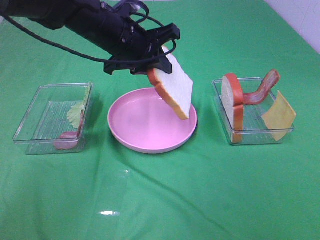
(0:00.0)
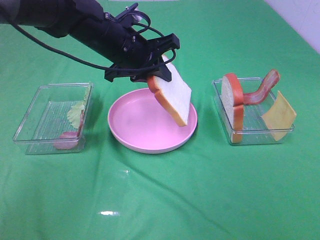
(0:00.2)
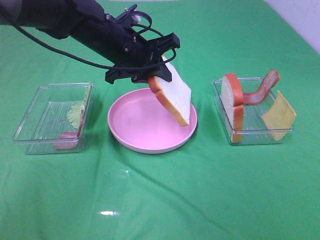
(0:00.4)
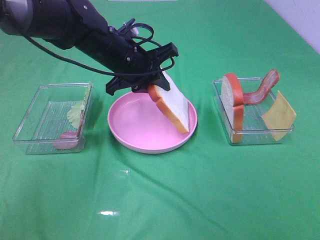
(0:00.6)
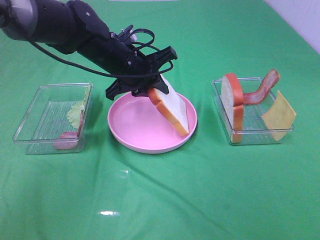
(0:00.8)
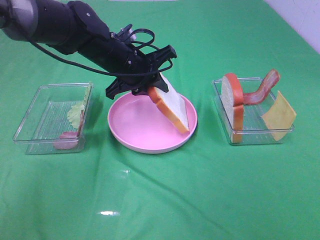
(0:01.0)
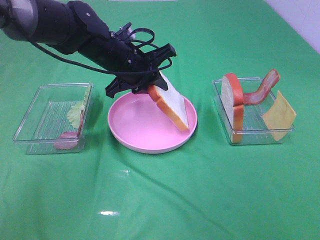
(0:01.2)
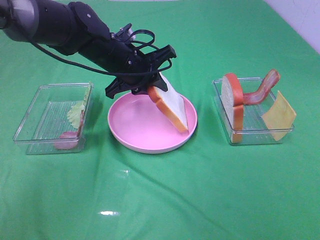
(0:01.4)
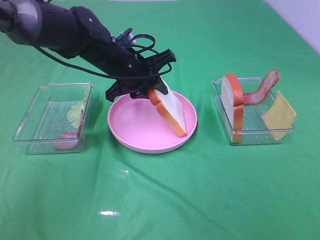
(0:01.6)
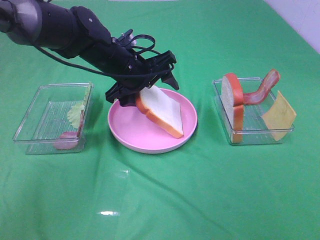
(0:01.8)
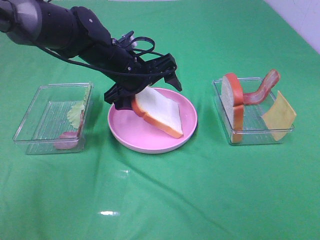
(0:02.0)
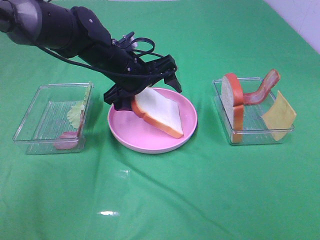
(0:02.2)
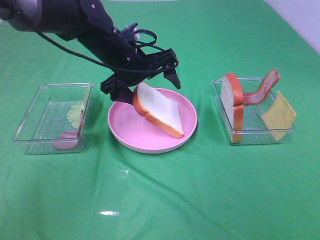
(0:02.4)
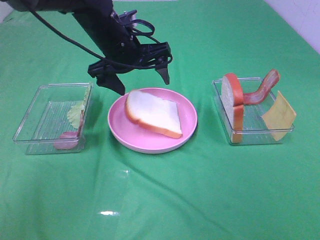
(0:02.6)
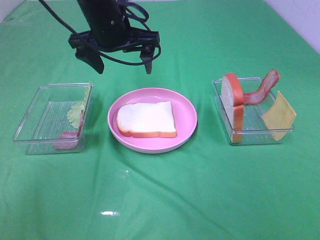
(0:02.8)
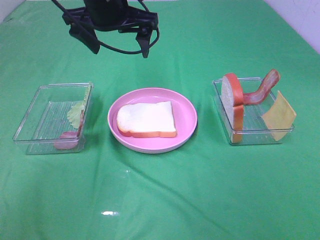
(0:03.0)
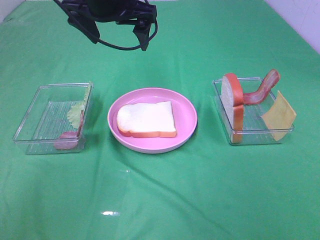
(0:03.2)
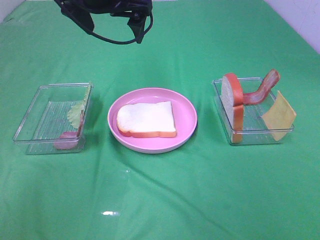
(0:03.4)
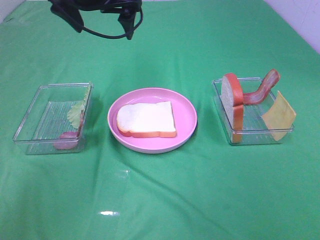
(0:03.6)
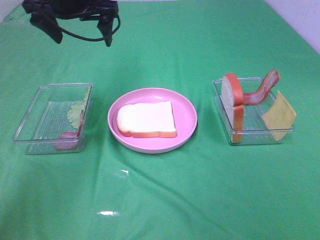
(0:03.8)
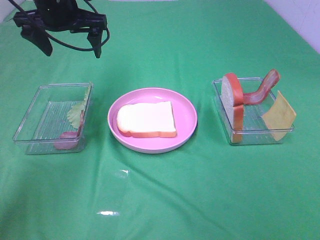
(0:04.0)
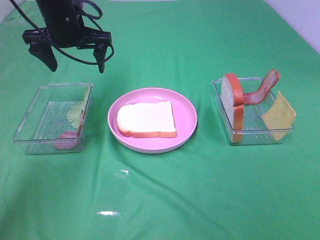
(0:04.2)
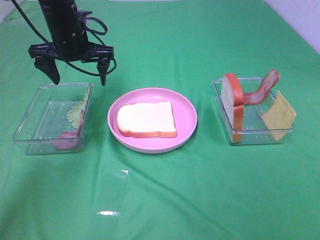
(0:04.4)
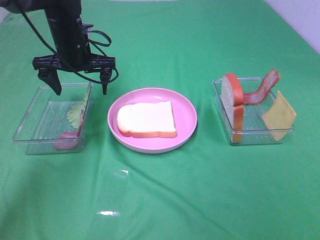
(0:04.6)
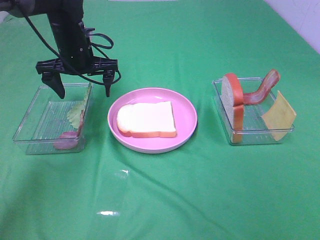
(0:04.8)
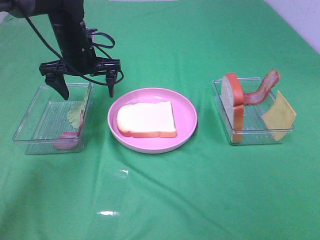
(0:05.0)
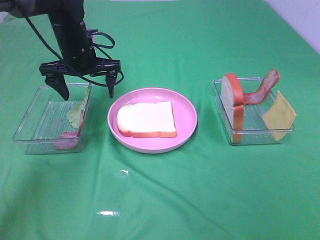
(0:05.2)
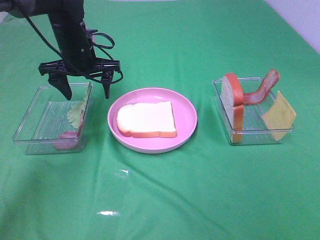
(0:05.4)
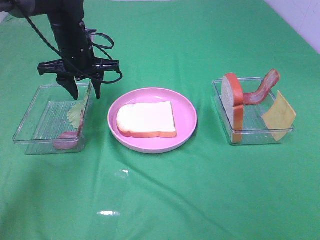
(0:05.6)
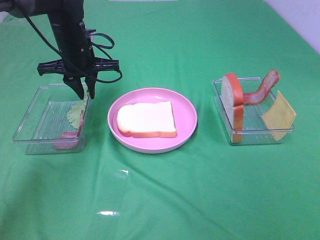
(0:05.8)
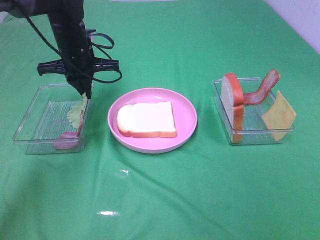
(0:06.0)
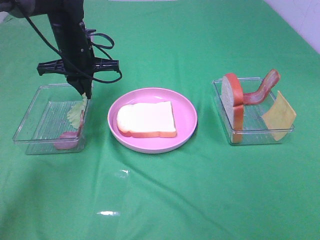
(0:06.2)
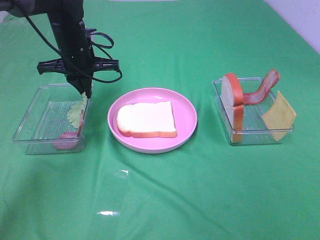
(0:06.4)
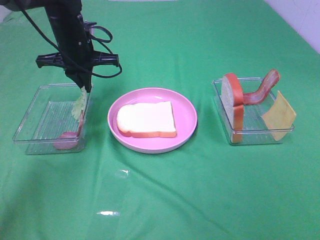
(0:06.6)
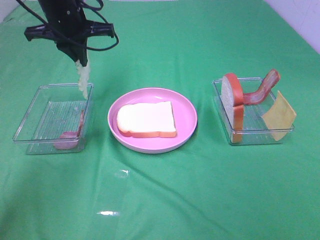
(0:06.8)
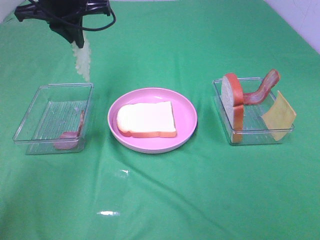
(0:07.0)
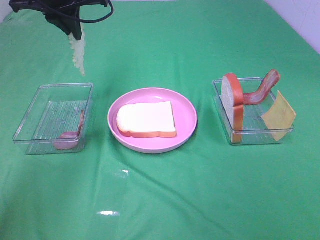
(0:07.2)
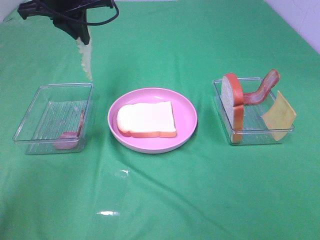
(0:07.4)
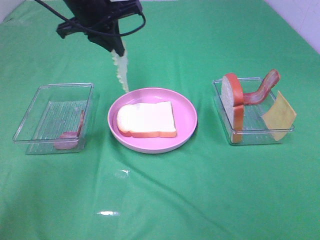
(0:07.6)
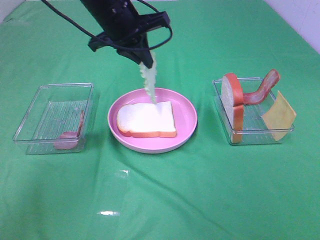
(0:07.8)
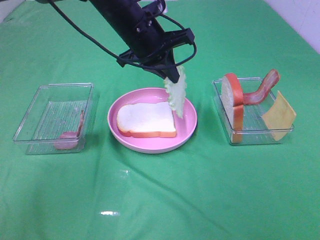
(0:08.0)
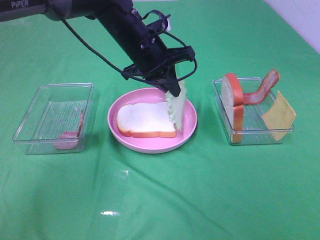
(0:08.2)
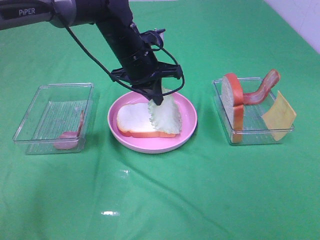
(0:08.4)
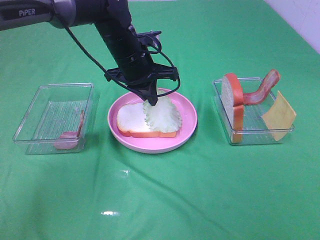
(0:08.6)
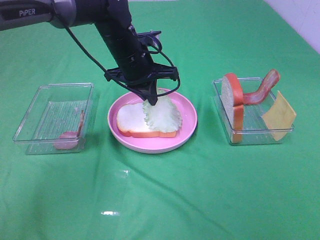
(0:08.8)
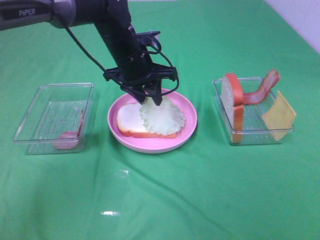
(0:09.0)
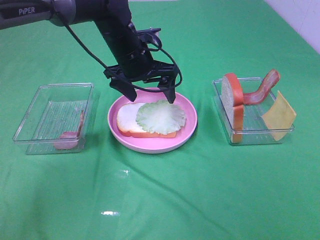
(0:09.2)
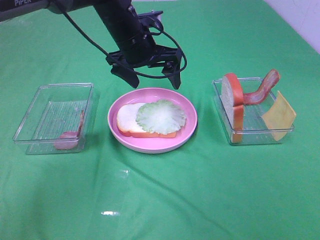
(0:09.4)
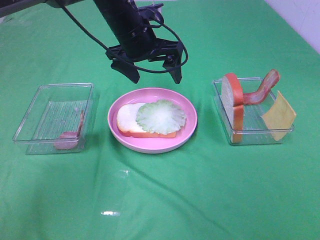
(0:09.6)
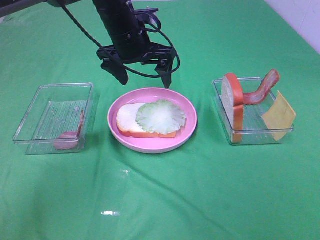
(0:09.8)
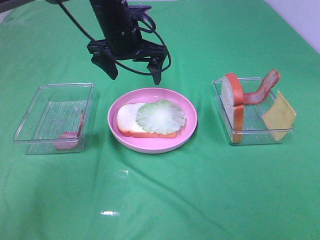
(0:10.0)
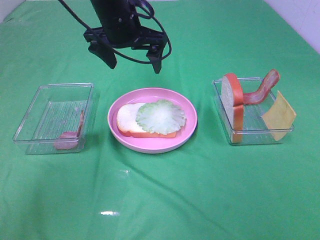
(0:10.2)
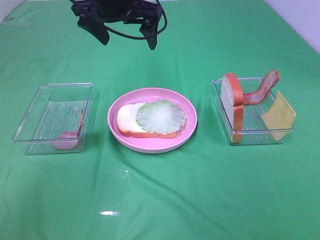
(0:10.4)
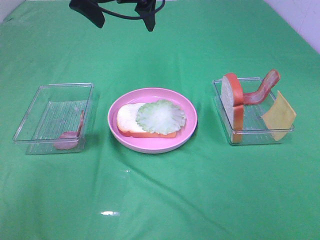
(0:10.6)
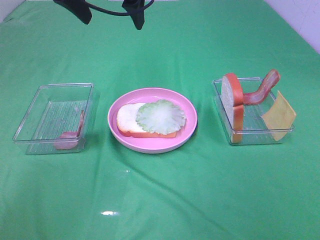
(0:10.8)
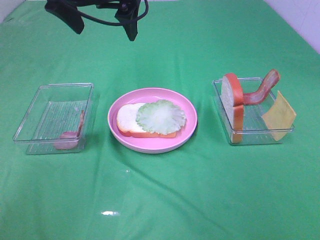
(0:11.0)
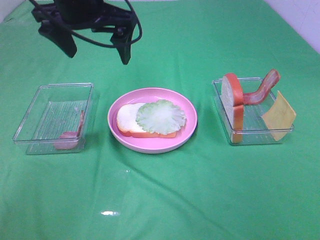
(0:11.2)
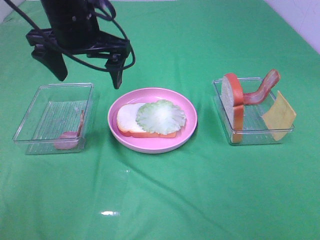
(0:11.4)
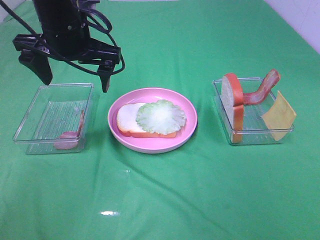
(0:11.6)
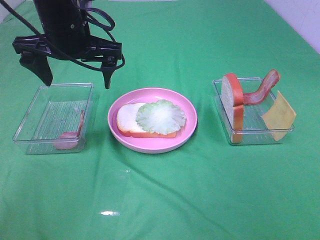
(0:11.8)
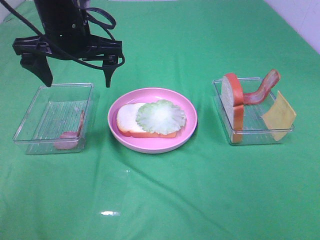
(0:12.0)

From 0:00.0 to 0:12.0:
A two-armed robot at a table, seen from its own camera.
Task of the whole recording: Make sandwiches.
Step, from 0:00.0 to 0:02.6: Left hand:place the bread slice on the plate.
Step, from 0:02.8 to 0:06.2: Left hand:grab the lettuce slice.
Step, from 0:06.4 to 0:09.0: Left hand:place the lettuce slice on the bread slice.
From 0:00.0 to 0:01.6: The left gripper heads downward, covering approximately 5 cm.
From 0:01.6 to 0:03.0: The left gripper goes roughly 15 cm upward, and opens its fingers.
From 0:03.0 to 0:04.4: The left gripper travels downward and to the left by some 10 cm.
From 0:04.4 to 0:06.0: The left gripper closes its fingers.
From 0:06.0 to 0:07.6: The left gripper travels upward by some 10 cm.
From 0:07.6 to 0:09.0: The left gripper heads downward and to the right, covering some 10 cm, and opens.
From 0:09.0 to 0:10.4: The left gripper shifts roughly 10 cm upward, and opens its fingers.
From 0:10.4 to 0:12.0: The left gripper travels backward by roughly 5 cm.

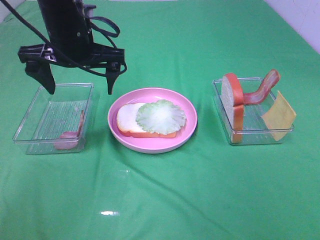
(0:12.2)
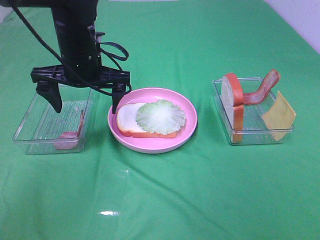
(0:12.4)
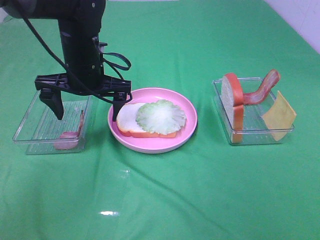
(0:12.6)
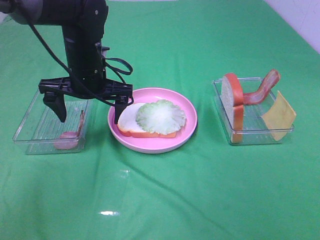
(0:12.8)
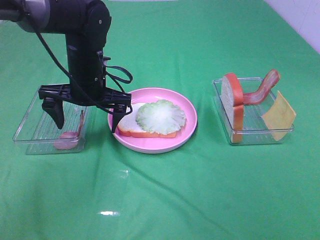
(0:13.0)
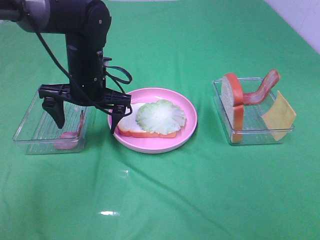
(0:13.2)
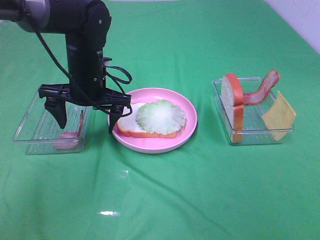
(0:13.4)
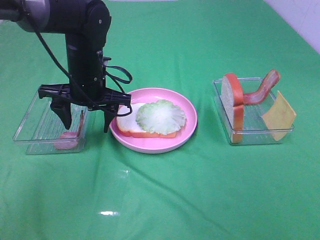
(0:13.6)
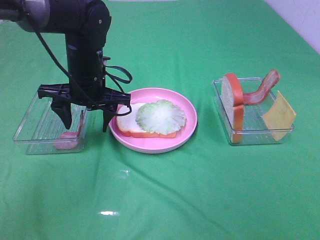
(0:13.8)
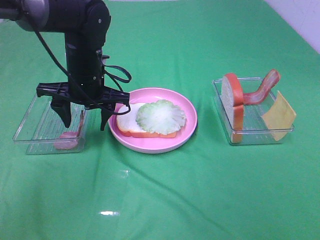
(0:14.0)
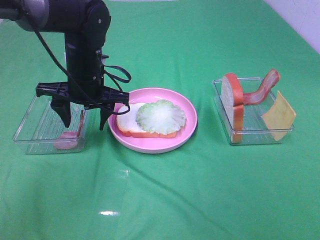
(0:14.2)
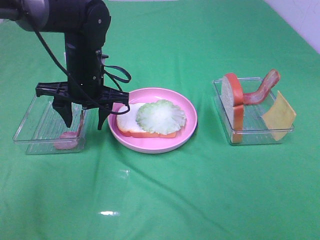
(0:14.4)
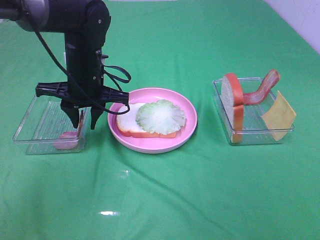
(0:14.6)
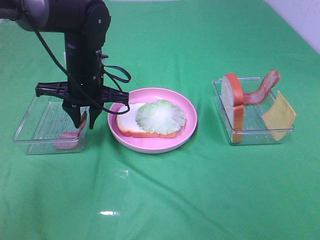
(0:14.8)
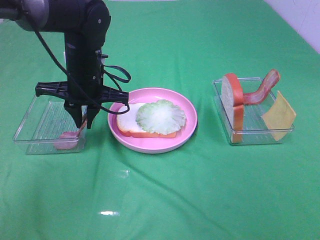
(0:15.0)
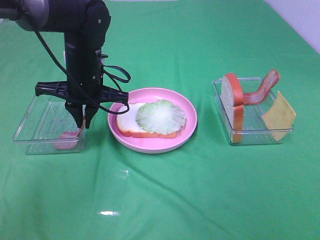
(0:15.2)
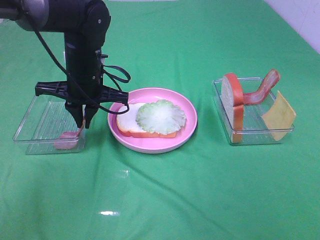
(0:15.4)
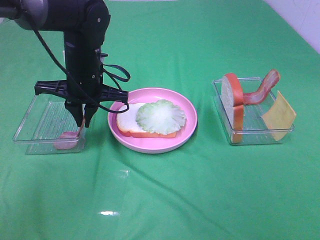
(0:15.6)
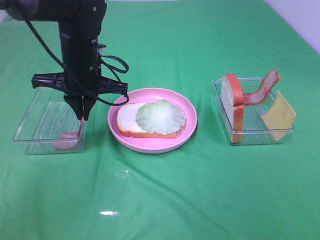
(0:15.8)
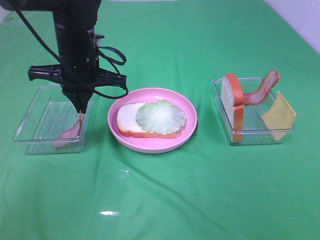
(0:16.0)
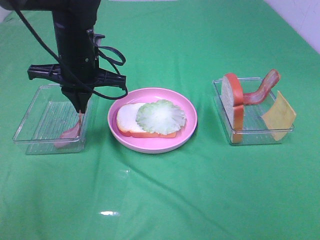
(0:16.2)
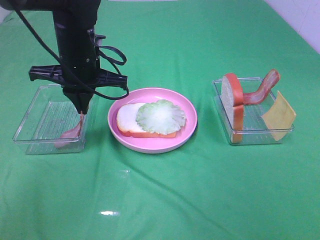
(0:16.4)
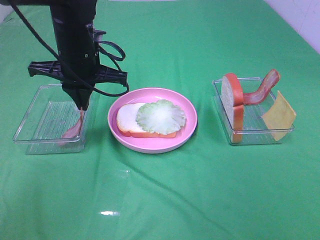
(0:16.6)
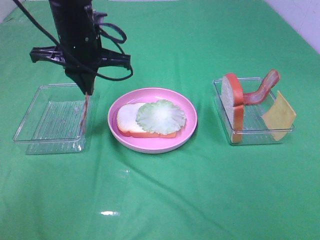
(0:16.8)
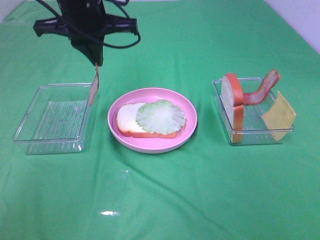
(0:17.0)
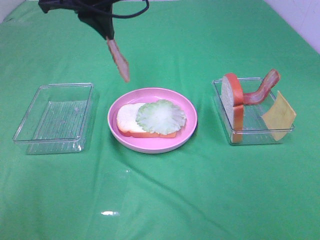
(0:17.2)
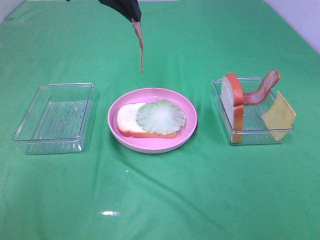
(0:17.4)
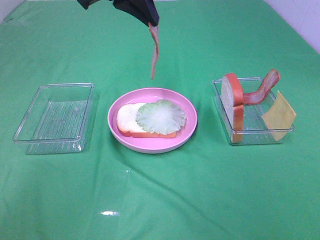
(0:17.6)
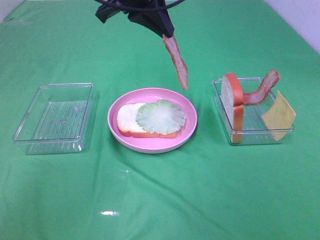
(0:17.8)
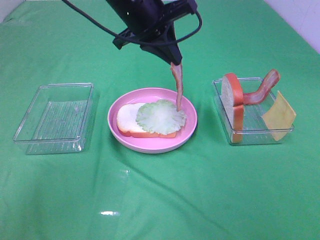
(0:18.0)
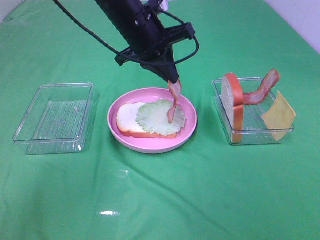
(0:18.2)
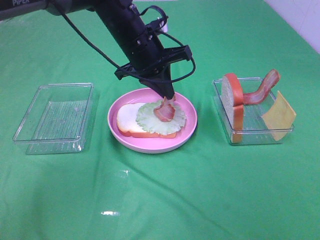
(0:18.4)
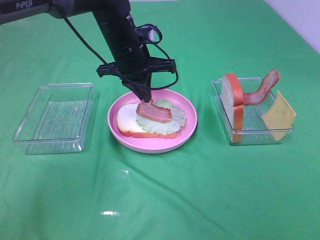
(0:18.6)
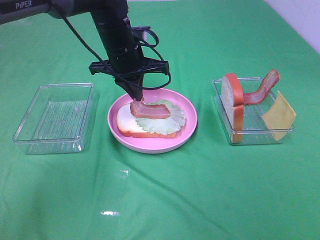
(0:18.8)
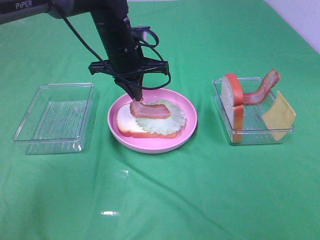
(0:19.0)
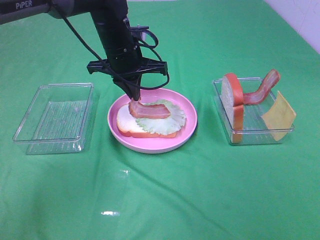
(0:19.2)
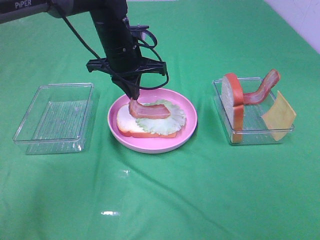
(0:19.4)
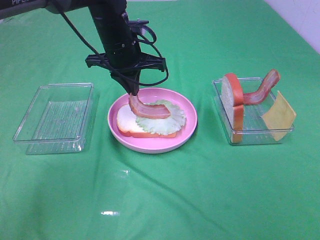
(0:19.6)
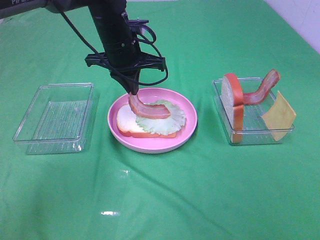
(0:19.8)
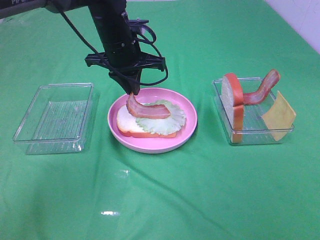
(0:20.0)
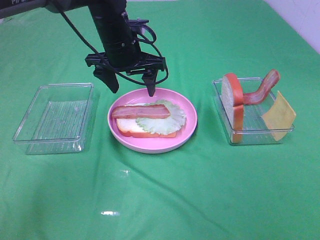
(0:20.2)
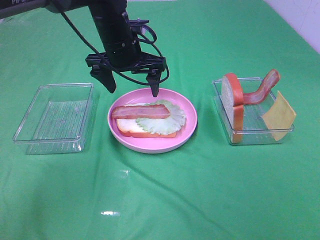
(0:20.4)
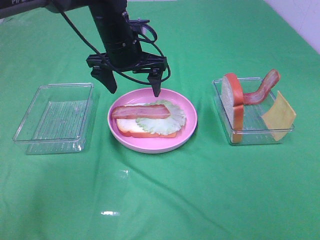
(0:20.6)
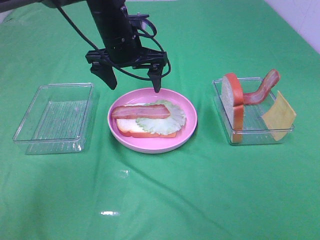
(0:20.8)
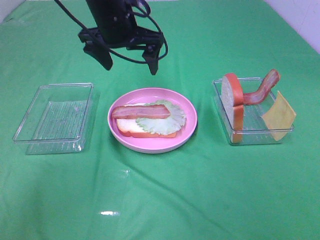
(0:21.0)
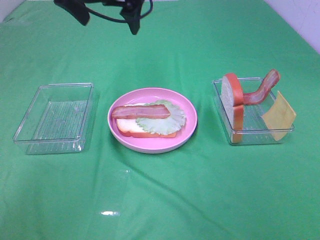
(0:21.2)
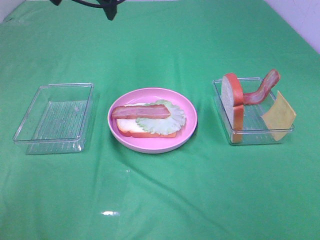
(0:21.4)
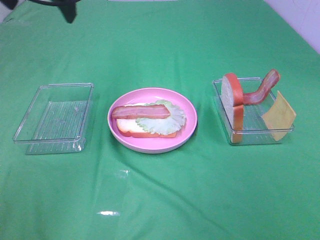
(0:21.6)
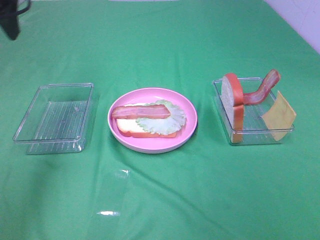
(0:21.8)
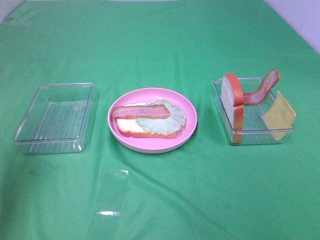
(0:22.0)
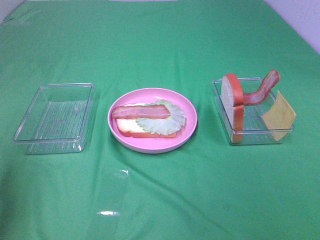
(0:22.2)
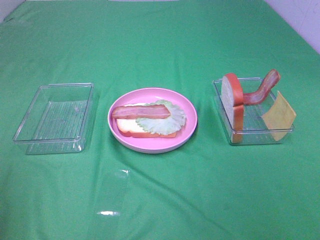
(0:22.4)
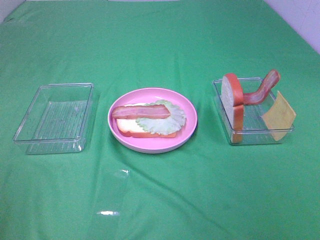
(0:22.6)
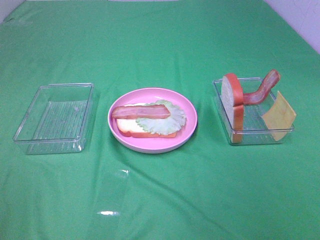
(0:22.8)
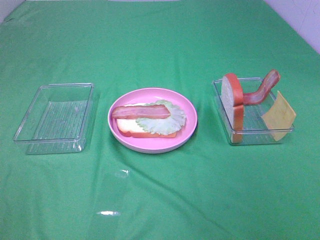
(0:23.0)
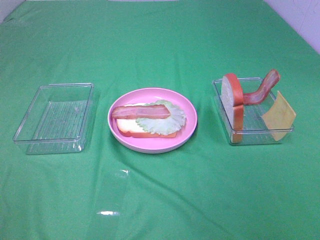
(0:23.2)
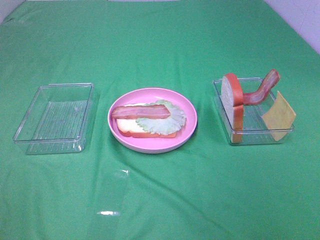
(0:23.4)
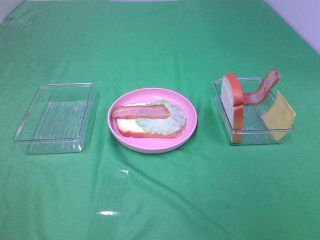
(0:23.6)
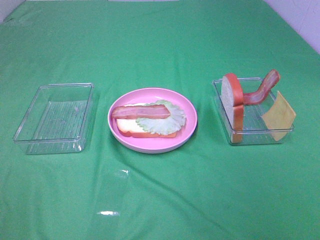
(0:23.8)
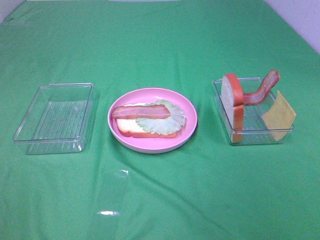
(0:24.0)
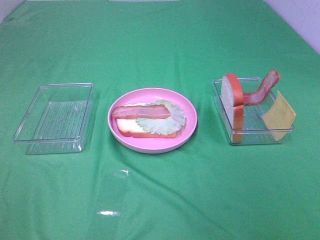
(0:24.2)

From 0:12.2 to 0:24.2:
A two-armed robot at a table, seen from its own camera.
Task of the whole recording: Make sandwiches.
Step, from 0:12.2 to 0:15.8: Left hand:grab the bacon.
Step, from 0:16.0 to 0:20.0: Left hand:place bacon on lettuce slice.
From 0:12.2 to 0:13.8: The left gripper heads downward, covering roughly 10 cm.
From 0:13.8 to 0:15.2: The left gripper closes its fingers.
From 0:15.2 to 0:16.6: There are only small adjustments of the grippers.
From 0:16.6 to 0:18.2: The left gripper heads to the right, covering roughly 10 cm, and travels upward and back again, approximately 15 cm each way.
From 0:19.8 to 0:21.2: The left gripper goes approximately 15 cm upward, and opens up.
From 0:21.2 to 0:22.6: The left gripper heads backward and to the left, covering about 40 cm.
